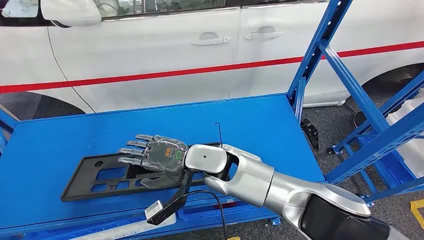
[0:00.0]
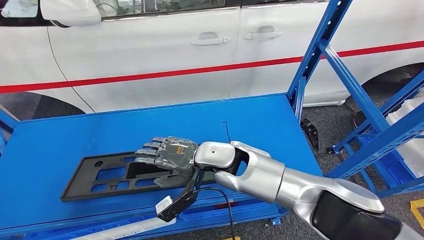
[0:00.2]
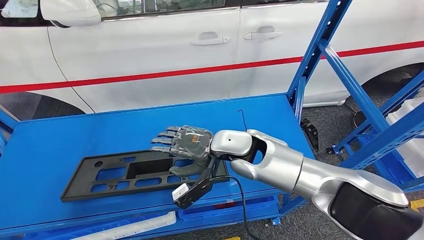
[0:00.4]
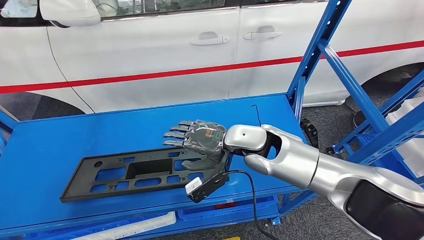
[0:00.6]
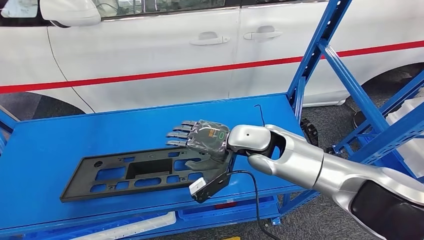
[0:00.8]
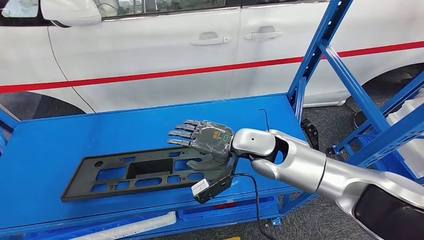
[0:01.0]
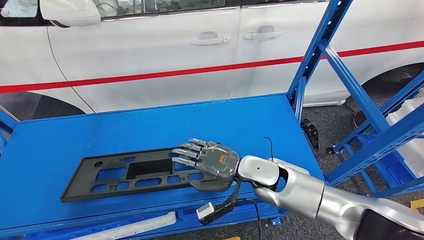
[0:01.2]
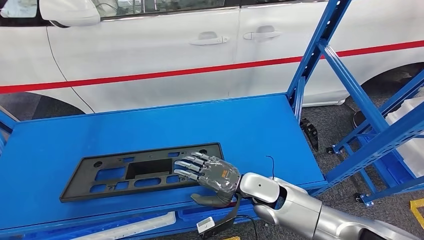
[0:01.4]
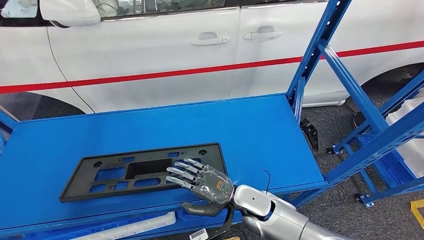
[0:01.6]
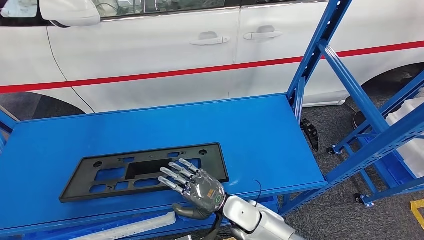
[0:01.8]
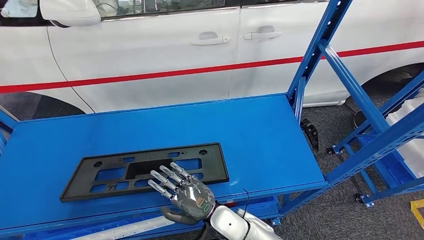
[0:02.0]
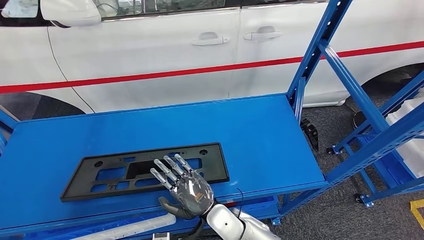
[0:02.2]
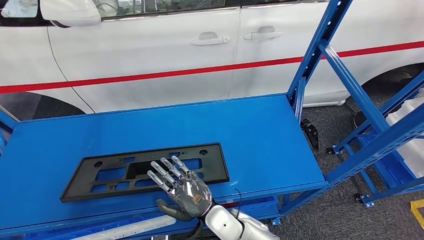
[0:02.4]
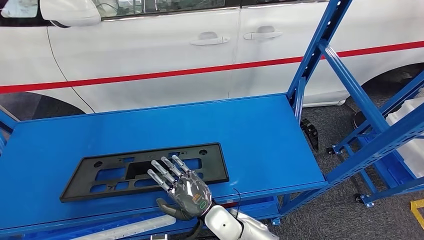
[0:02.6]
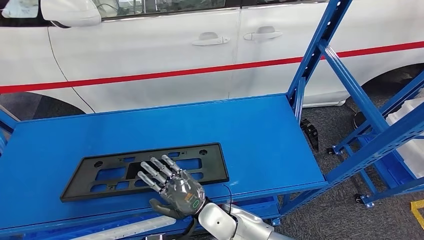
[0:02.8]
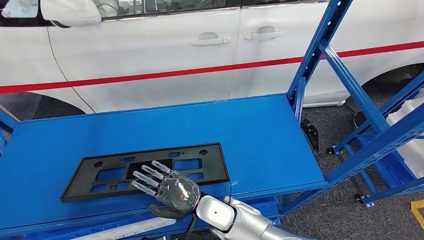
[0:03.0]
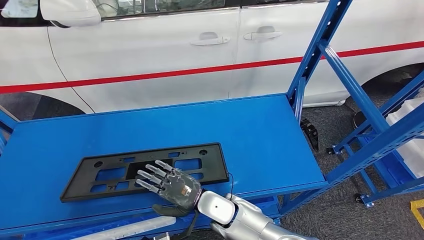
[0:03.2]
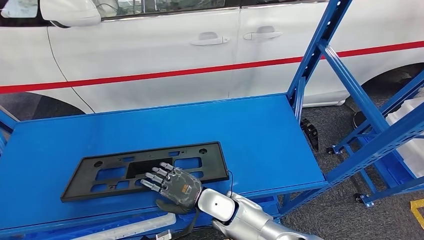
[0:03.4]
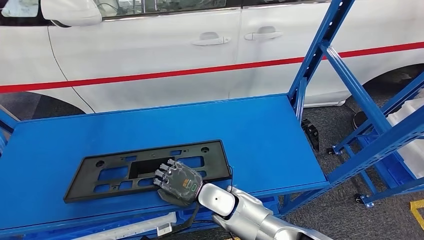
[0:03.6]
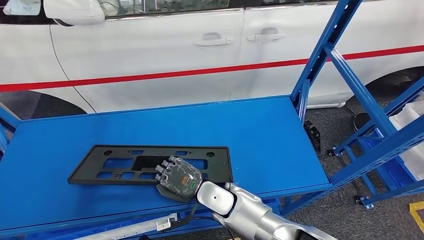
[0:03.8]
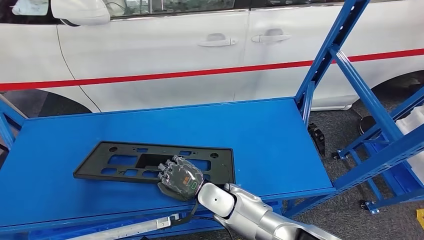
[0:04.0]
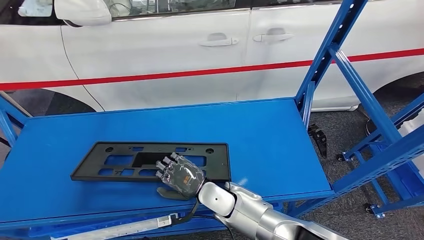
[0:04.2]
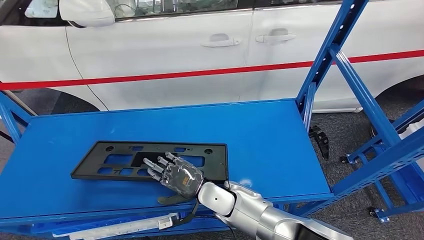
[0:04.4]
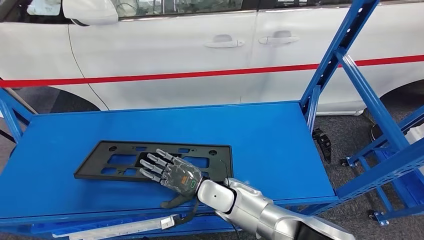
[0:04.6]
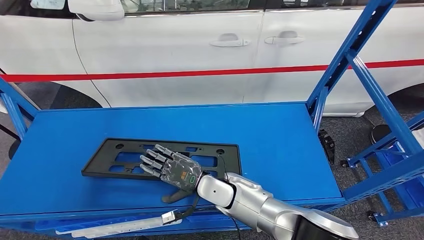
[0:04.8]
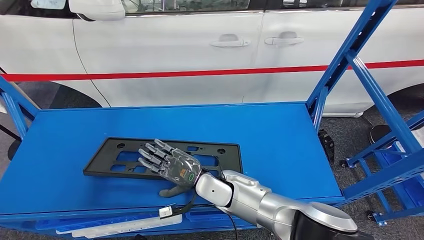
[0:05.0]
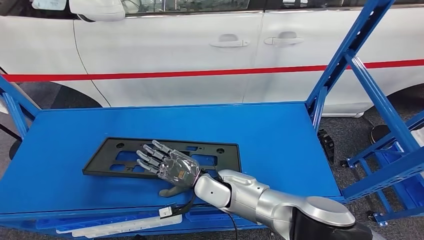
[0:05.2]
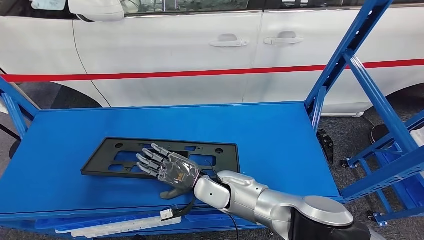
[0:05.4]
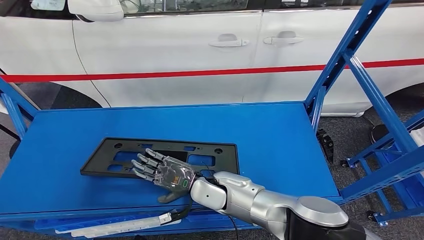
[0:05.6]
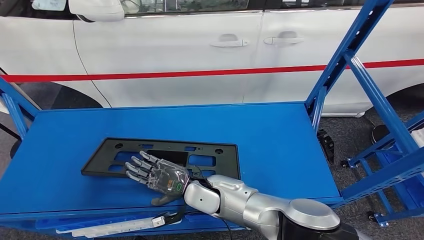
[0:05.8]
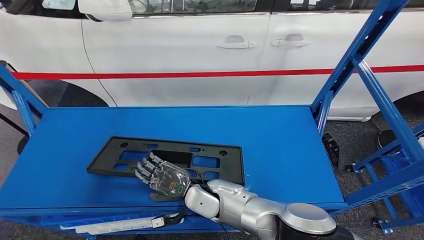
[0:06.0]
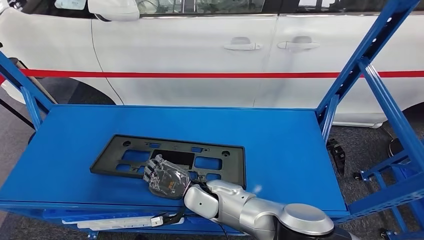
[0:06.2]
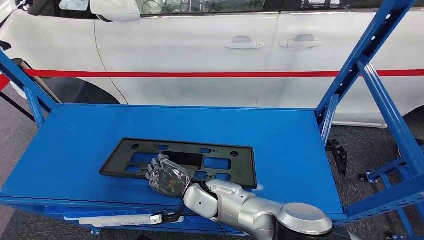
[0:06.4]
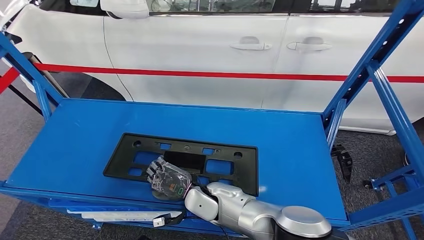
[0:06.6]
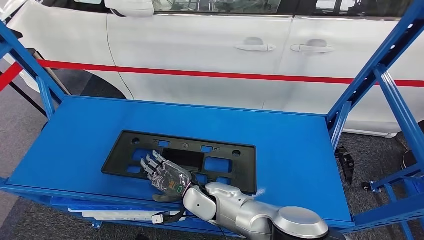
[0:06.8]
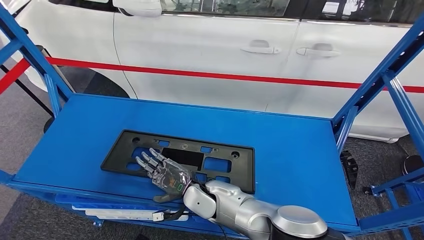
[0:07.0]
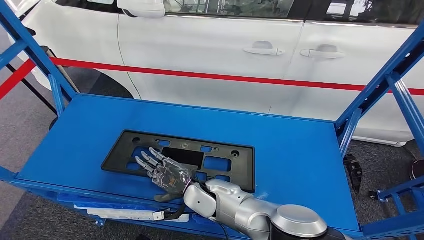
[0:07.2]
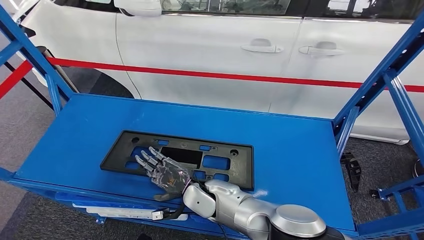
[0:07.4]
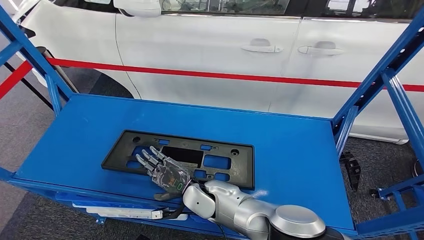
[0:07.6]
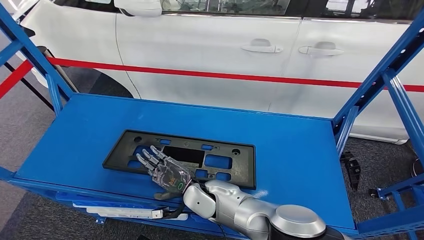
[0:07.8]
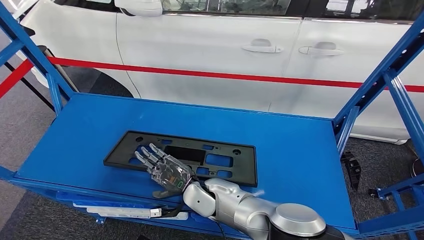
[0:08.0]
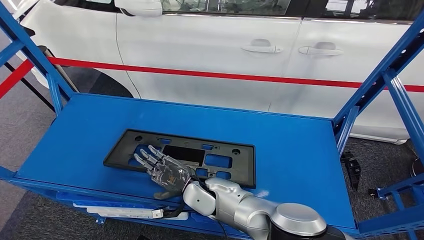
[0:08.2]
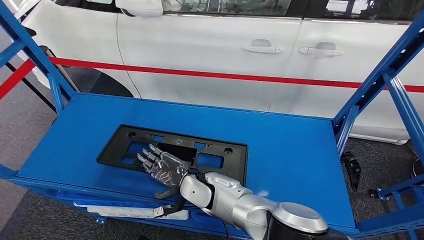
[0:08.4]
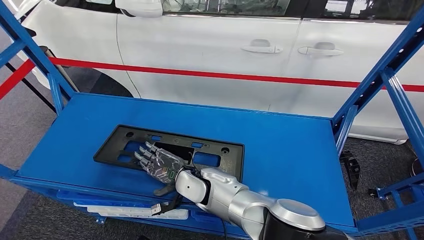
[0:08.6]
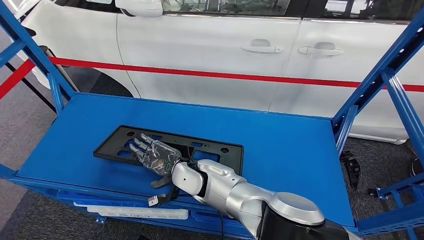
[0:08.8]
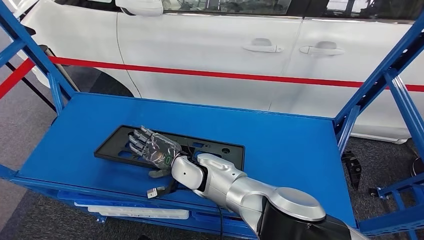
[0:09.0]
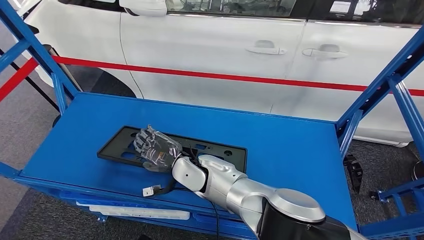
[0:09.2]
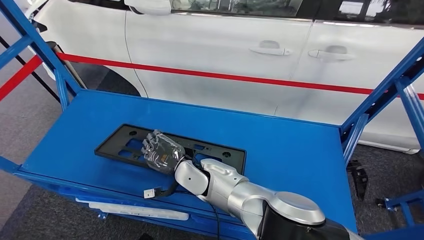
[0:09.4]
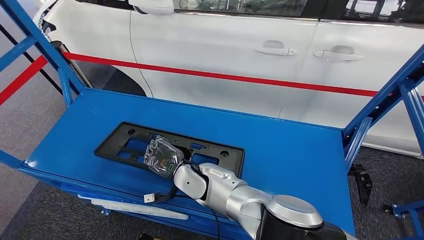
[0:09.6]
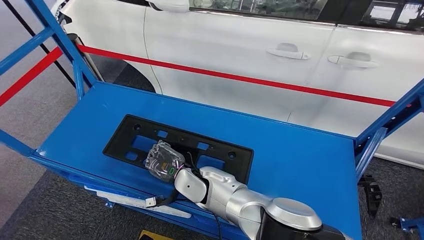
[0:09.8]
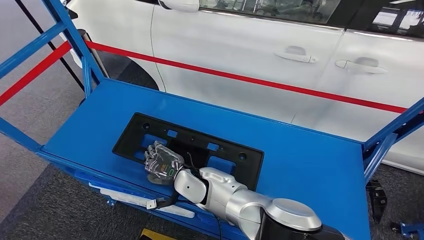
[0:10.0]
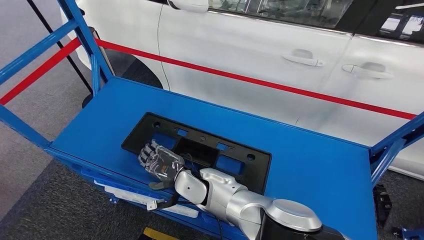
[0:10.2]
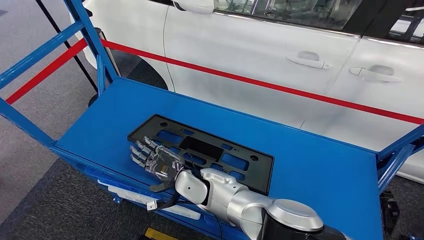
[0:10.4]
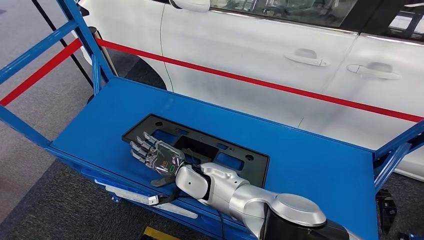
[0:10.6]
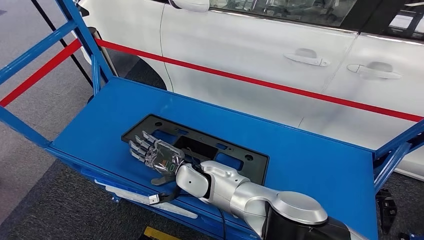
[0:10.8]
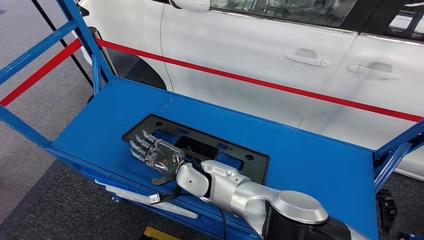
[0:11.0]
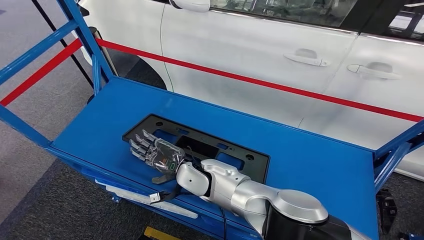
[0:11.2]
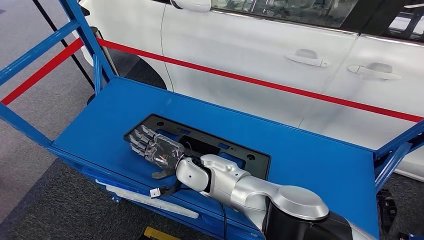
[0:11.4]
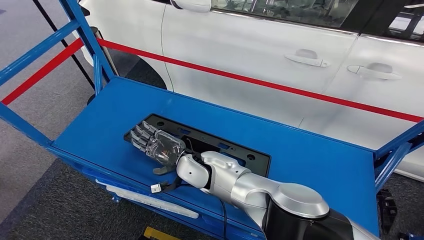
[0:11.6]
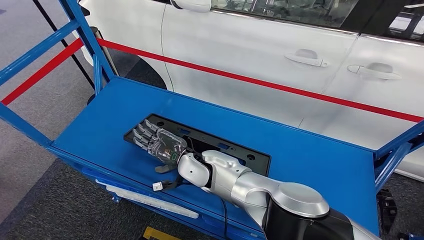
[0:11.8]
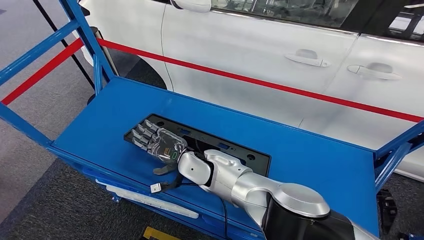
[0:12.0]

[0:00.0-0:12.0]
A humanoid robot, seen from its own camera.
0:01.6 to 0:03.0: The right hand shifts roughly 10 cm to the left.
0:07.6 to 0:09.0: The right hand goes about 10 cm upward.
0:10.4 to 0:12.0: The hands stay close to where they were, moving slightly.

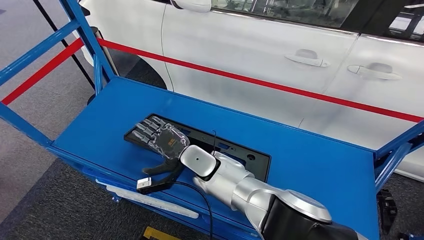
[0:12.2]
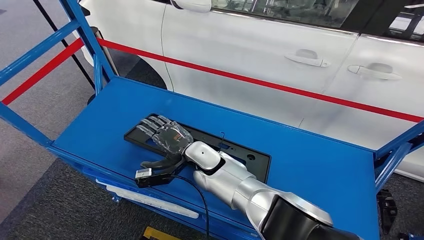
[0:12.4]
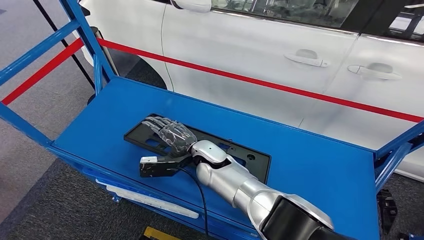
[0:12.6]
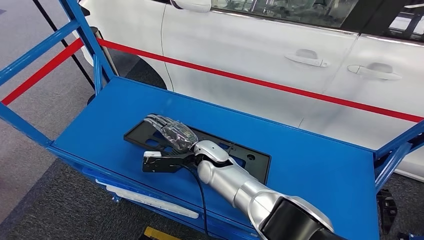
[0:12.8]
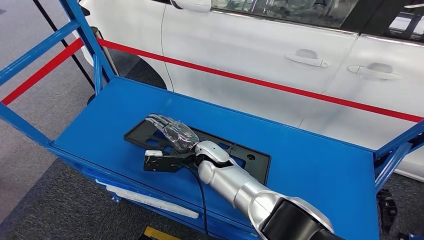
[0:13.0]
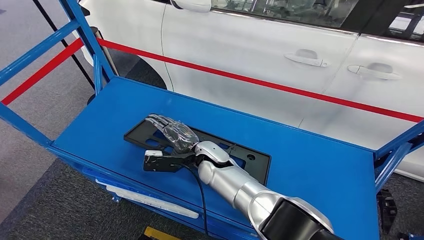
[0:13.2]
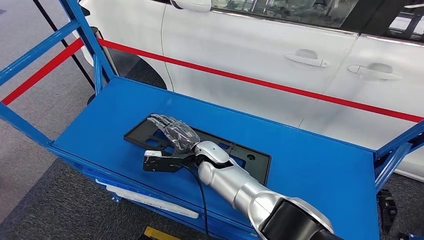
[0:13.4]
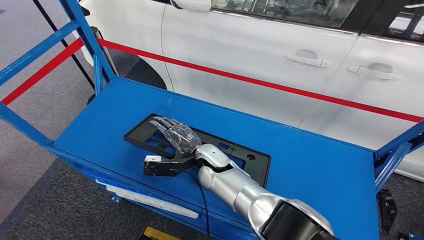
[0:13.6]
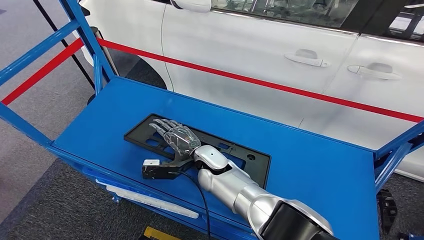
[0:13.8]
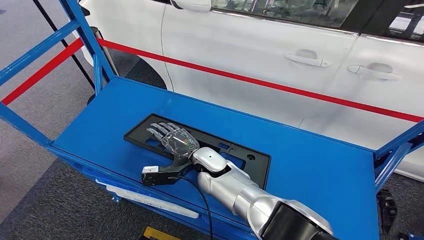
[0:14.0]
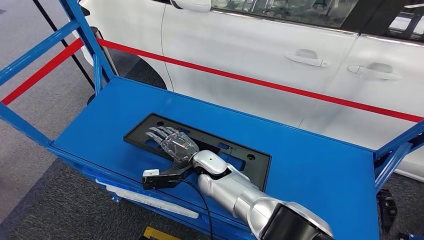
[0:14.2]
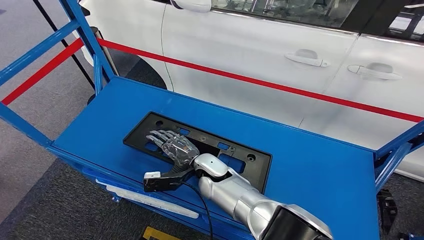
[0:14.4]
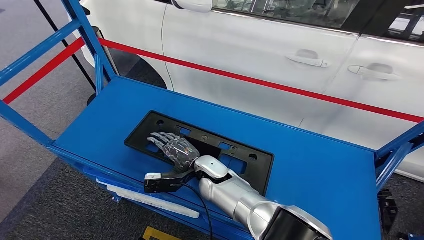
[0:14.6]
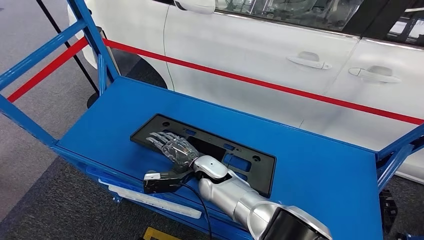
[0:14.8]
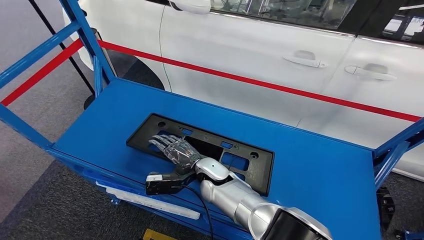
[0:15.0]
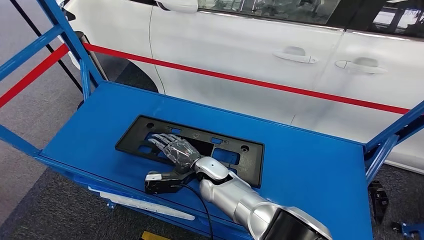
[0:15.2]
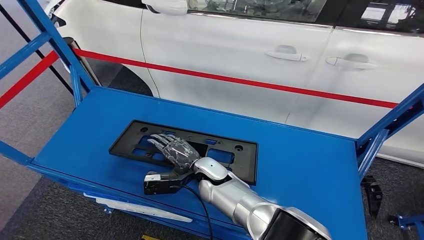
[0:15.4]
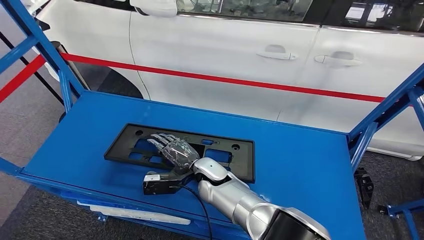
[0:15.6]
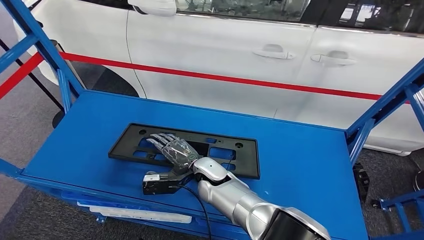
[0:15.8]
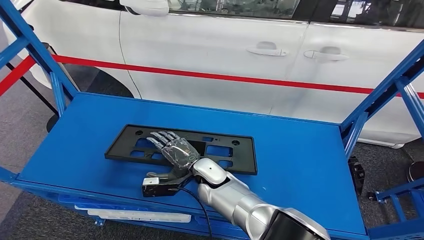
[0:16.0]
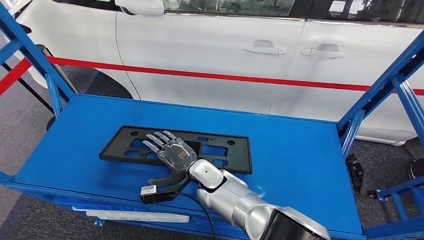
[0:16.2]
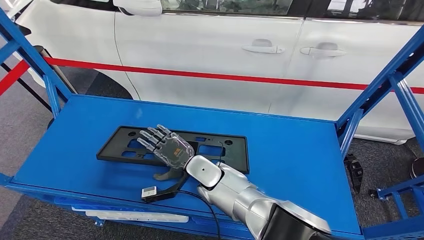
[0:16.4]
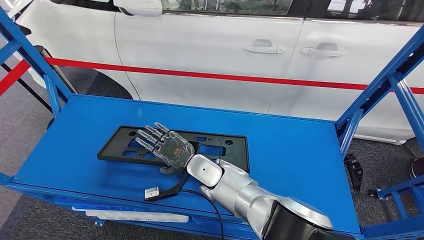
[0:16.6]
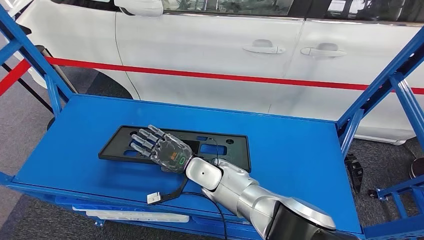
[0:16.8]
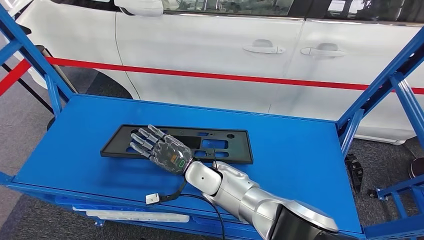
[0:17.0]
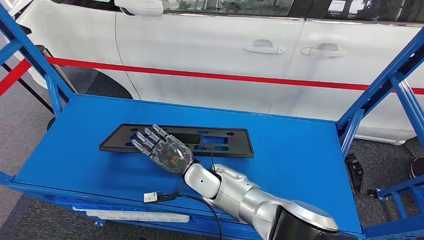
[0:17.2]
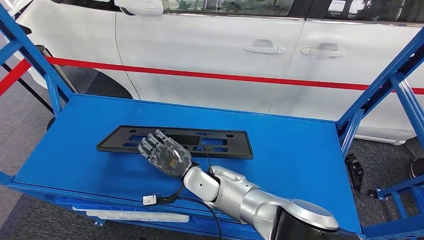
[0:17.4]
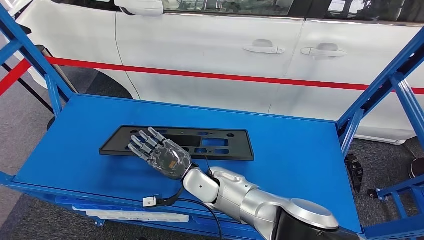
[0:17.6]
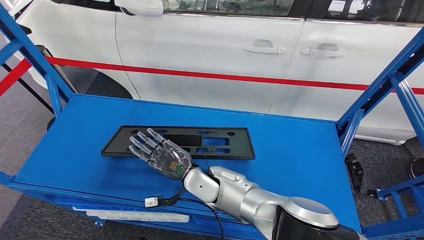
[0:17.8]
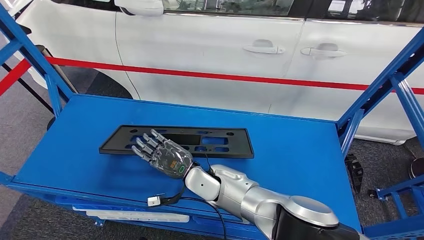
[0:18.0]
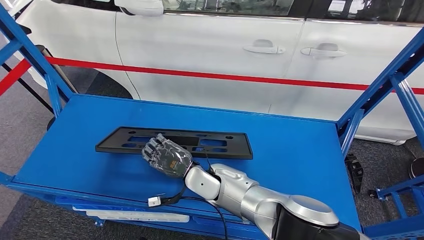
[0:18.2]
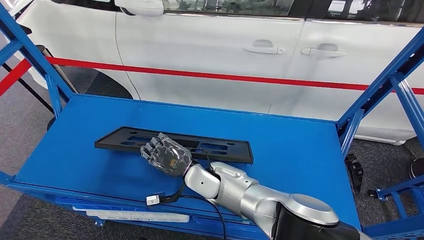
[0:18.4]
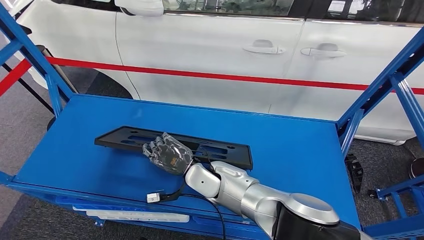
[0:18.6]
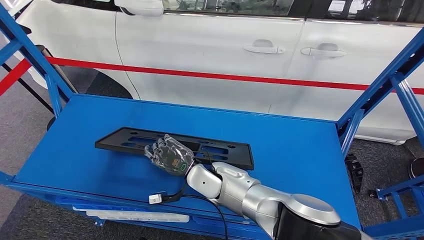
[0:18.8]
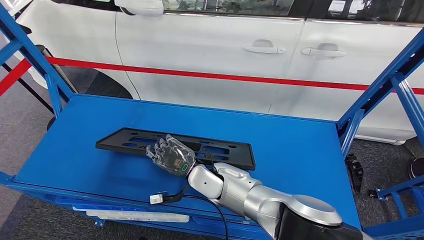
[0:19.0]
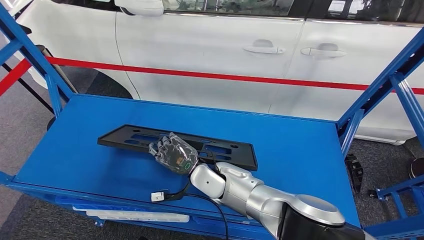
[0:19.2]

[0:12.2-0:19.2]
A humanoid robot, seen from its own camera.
0:13.6 to 0:15.0: The hands make only small movements.
0:17.8 to 0:19.2: The hands stay close to where they were, moving slightly.
